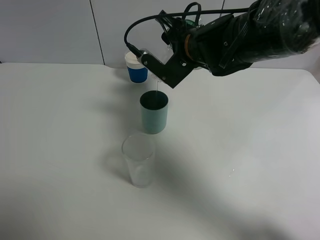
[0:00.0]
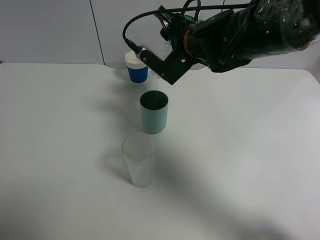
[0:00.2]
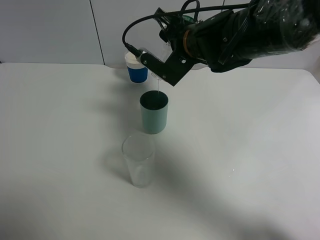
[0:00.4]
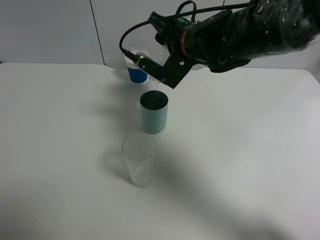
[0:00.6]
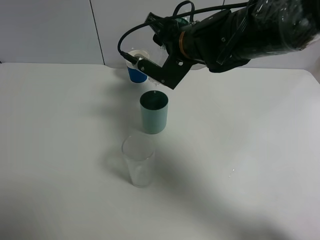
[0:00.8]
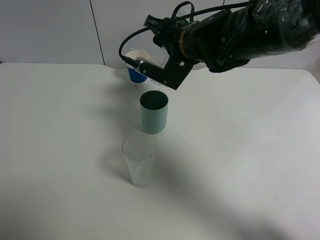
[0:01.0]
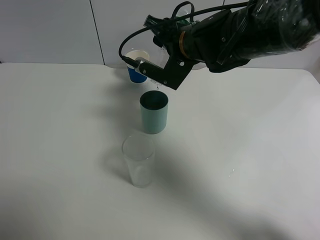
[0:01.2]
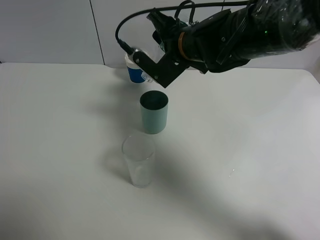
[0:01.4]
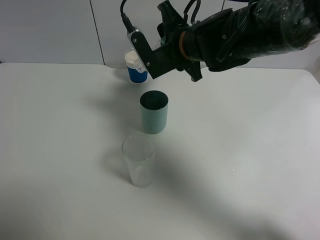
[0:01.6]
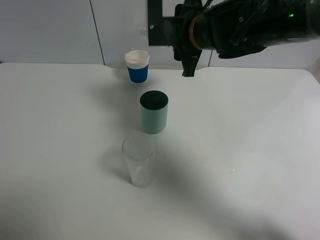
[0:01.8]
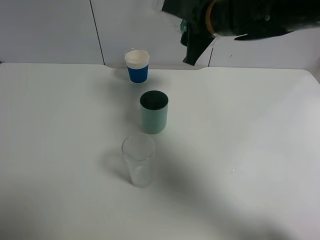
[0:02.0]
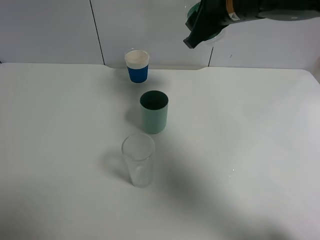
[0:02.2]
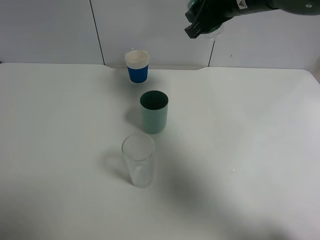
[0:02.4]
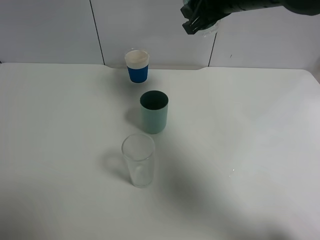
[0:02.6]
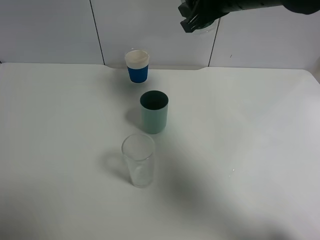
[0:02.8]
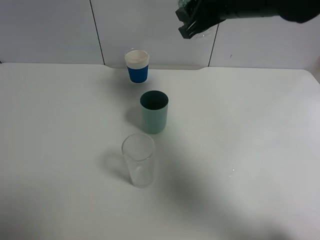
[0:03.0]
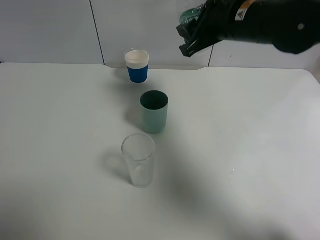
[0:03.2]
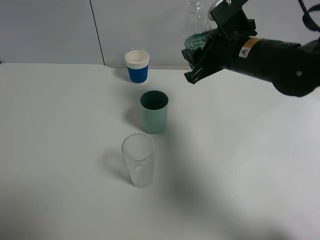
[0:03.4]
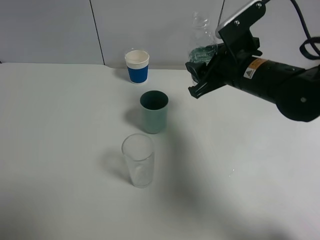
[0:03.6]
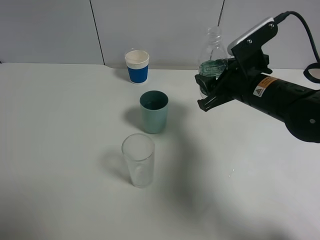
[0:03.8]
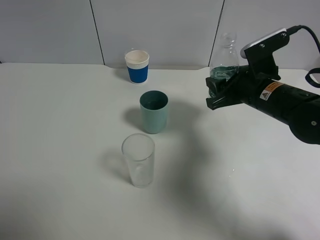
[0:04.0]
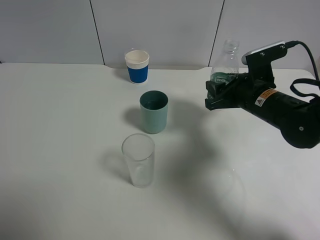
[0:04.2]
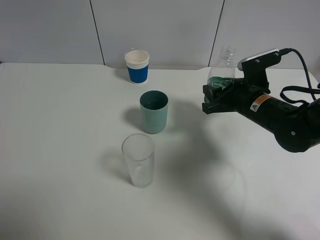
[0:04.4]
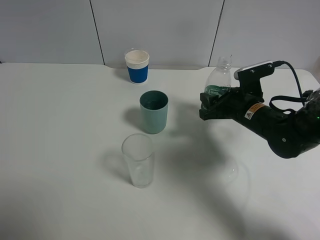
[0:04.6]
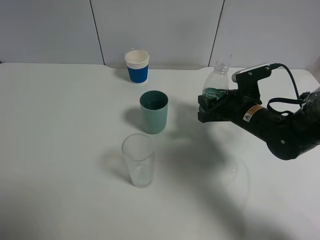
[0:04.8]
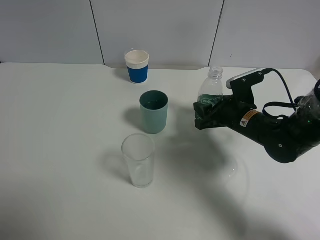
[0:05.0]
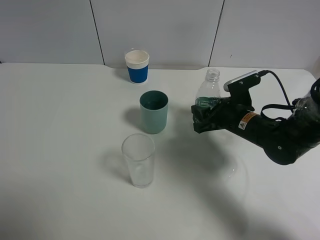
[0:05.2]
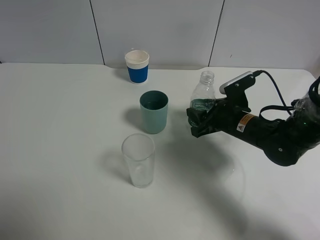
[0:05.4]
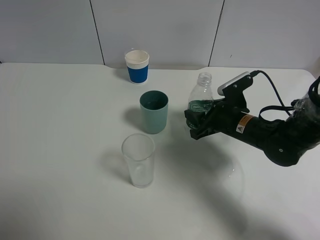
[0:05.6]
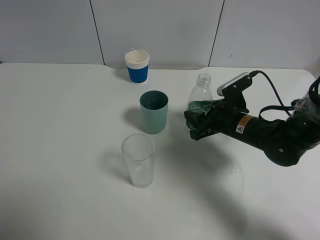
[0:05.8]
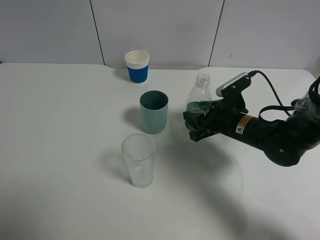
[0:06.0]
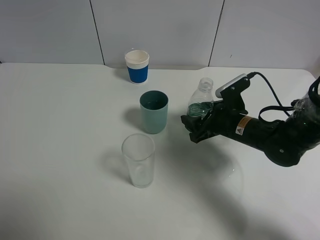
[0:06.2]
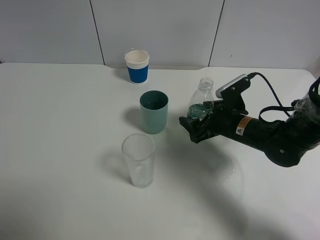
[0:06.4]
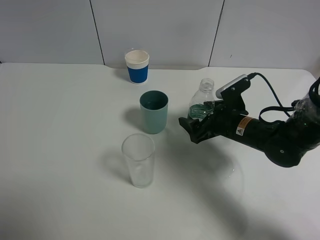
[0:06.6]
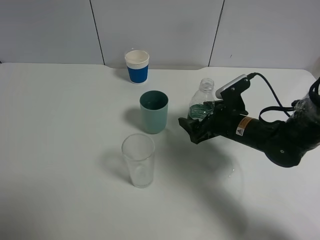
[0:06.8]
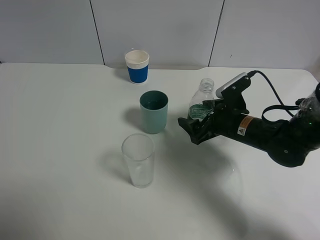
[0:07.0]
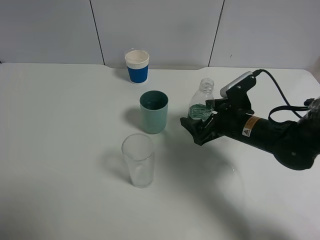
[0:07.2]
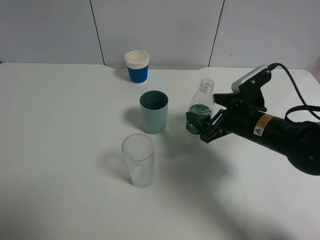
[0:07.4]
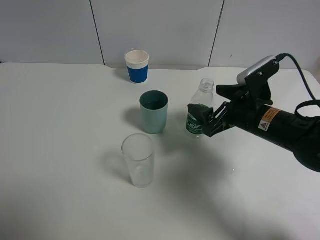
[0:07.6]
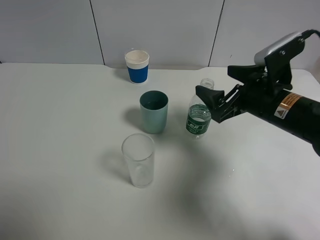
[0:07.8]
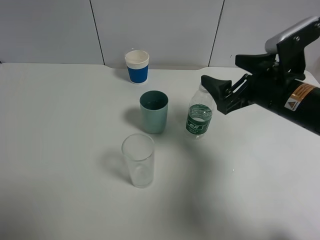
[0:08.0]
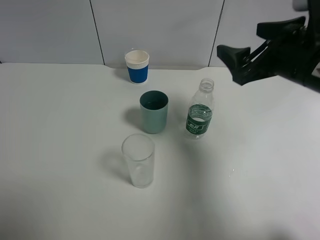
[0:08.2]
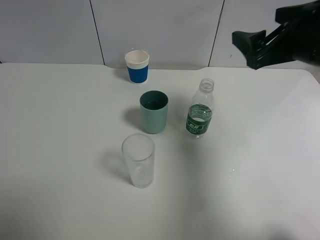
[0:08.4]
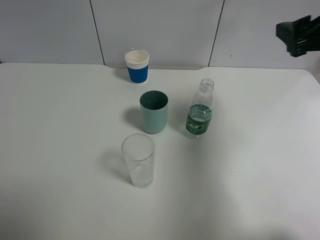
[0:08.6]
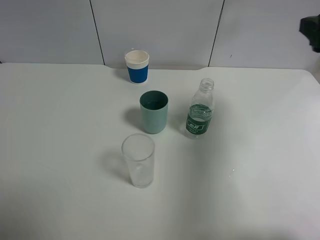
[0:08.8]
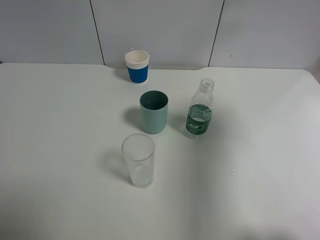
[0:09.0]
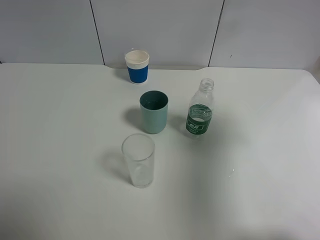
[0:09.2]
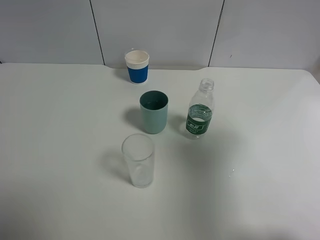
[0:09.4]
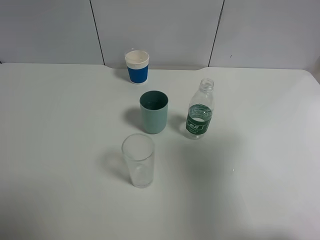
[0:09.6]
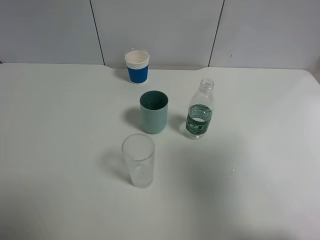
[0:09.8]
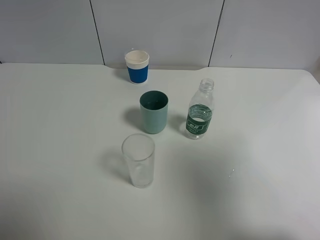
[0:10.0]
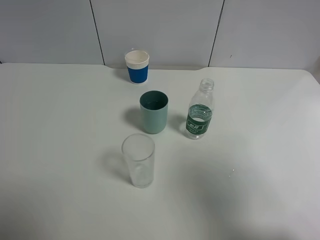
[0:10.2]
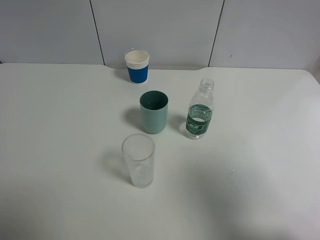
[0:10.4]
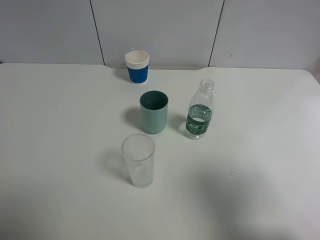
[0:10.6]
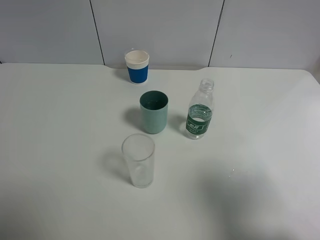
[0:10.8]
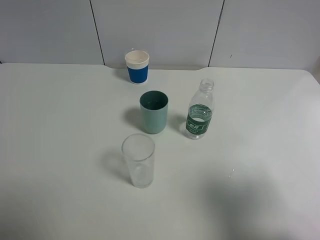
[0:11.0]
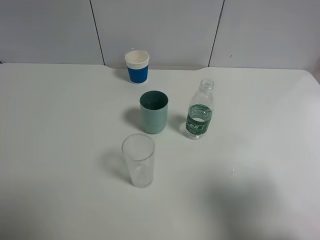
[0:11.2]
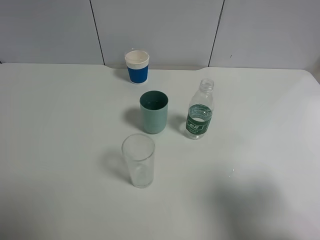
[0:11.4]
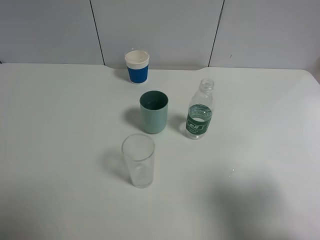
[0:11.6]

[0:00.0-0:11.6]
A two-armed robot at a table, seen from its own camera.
Task of the whole recording: use a gripper to hold the bottle of the drink and pour it into a random cup.
Step, 0:01.8 to 0:06.4: Place the mineral water bottle on the table with the right gripper.
0:00.0 to 0:01.4: There are only small adjustments of the grippers.
0:01.4 to 0:02.8: The right gripper travels upward and to the right by about 10 cm.
0:02.8 to 0:04.4: The right gripper goes approximately 20 cm downward.
0:04.4 to 0:05.8: The grippers move only a little.
0:05.8 to 0:07.2: The right gripper opens.
0:07.2 to 0:08.8: The right gripper shifts approximately 25 cm upward and to the right.
0:08.8 to 0:10.2: The right gripper heads backward, covering approximately 20 cm.
0:10.2 to 0:11.6: The right gripper shifts some 5 cm downward.

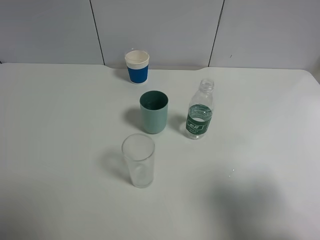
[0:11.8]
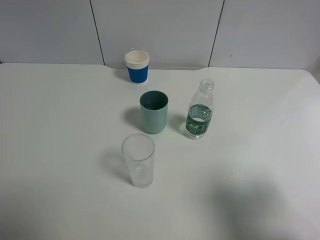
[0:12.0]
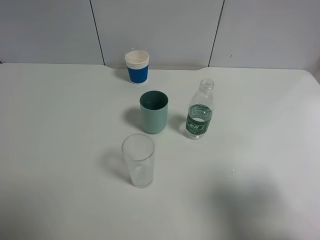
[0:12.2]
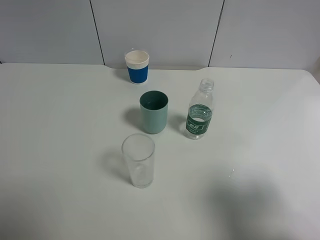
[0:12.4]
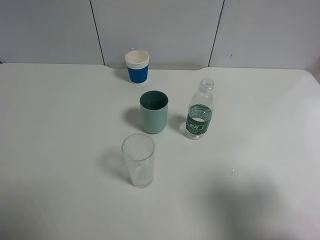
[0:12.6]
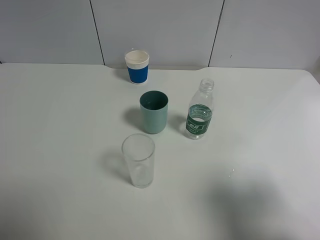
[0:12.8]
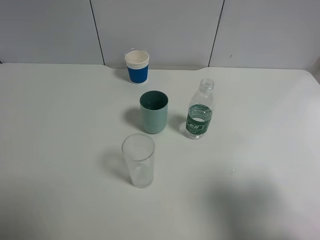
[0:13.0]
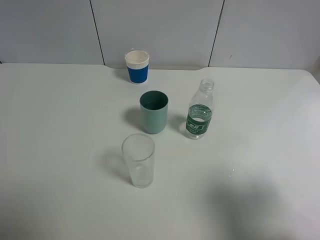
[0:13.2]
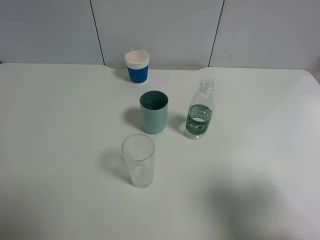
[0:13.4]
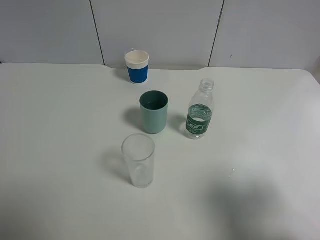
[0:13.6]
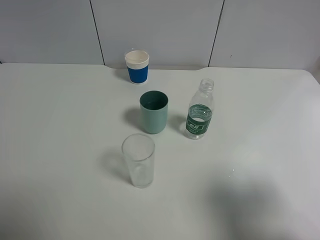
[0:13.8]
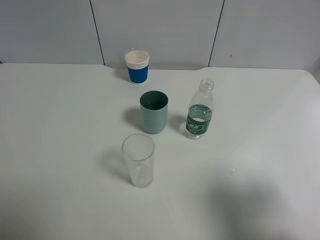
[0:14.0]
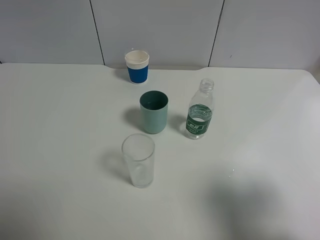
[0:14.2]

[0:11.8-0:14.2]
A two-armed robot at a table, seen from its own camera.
Task of the whole recording: use a gripper to hold the bottle of the drink and pour it into a random cup.
0:11.8 to 0:14.2: Both grippers stay put.

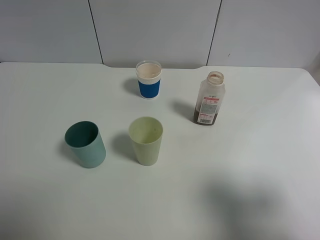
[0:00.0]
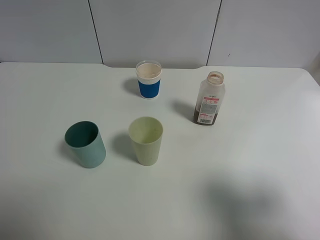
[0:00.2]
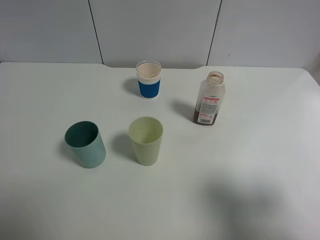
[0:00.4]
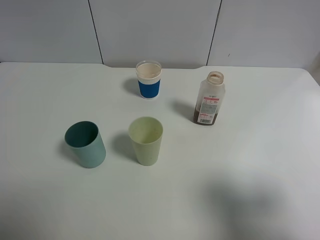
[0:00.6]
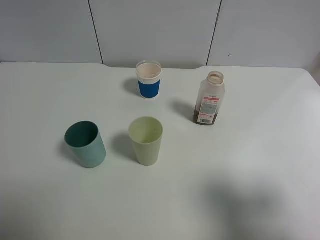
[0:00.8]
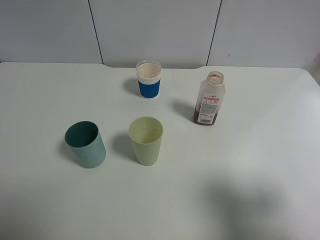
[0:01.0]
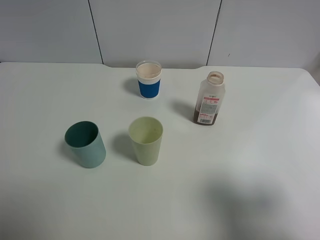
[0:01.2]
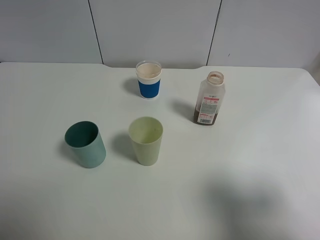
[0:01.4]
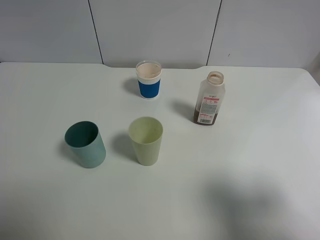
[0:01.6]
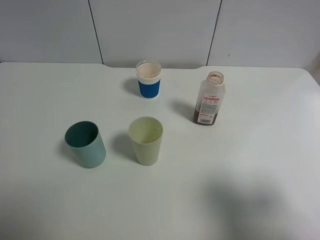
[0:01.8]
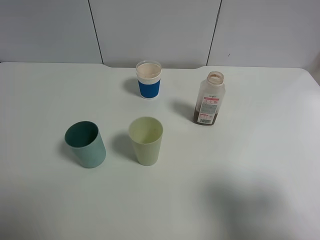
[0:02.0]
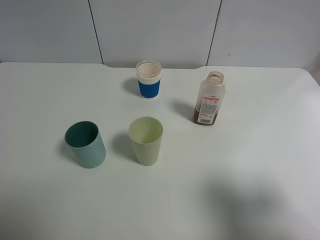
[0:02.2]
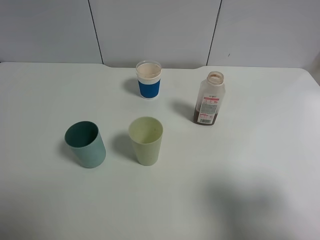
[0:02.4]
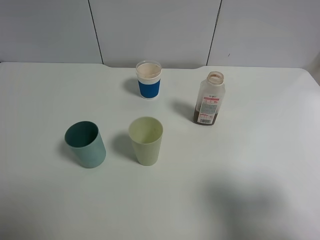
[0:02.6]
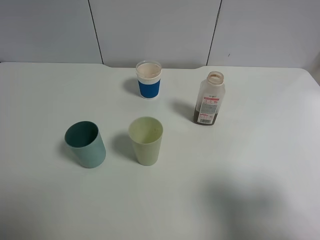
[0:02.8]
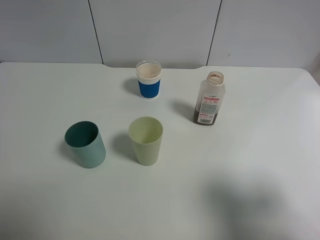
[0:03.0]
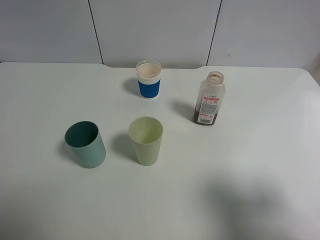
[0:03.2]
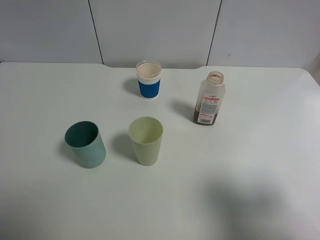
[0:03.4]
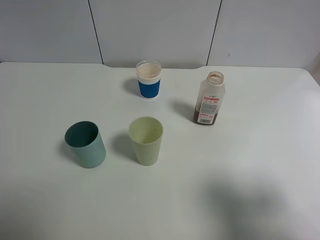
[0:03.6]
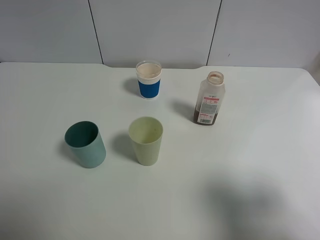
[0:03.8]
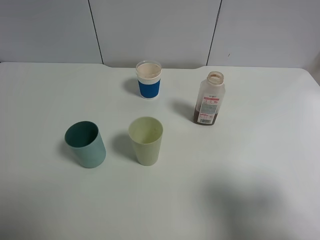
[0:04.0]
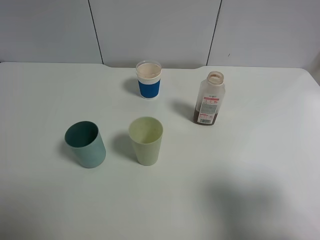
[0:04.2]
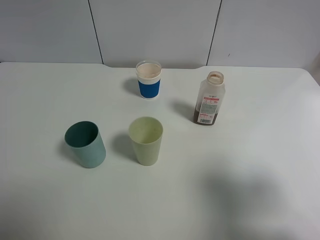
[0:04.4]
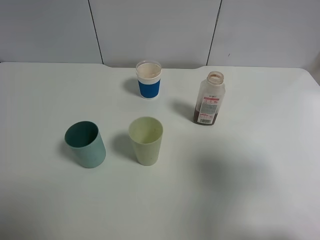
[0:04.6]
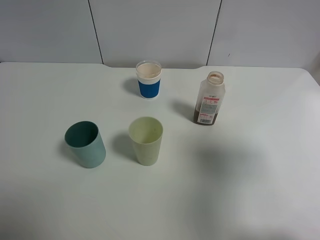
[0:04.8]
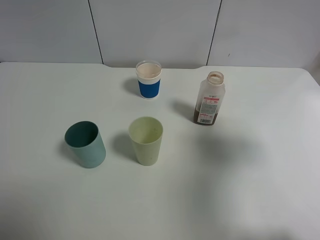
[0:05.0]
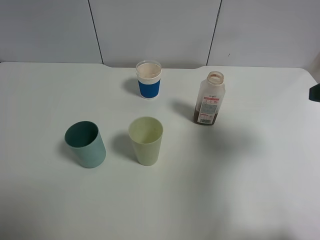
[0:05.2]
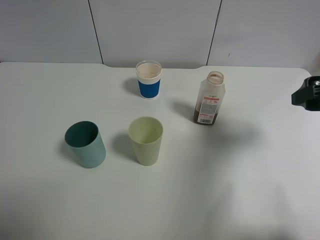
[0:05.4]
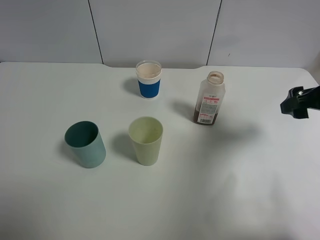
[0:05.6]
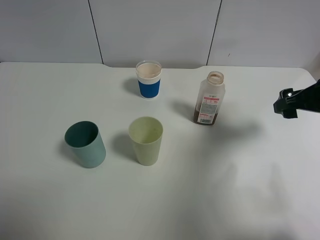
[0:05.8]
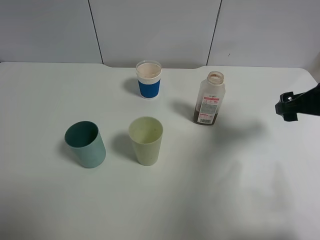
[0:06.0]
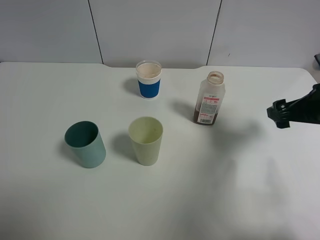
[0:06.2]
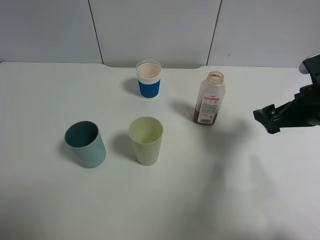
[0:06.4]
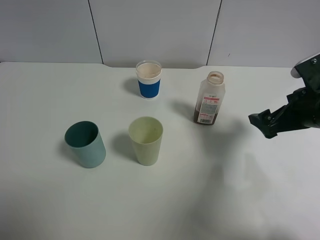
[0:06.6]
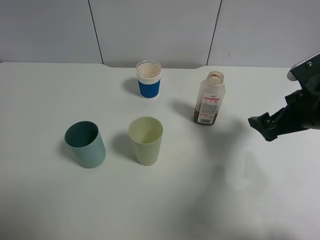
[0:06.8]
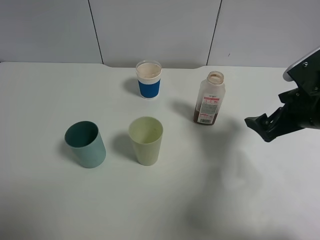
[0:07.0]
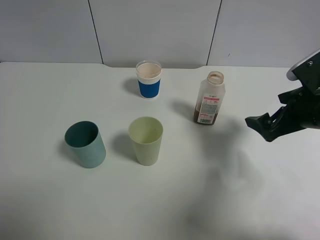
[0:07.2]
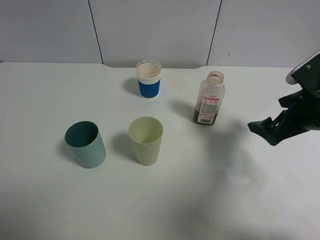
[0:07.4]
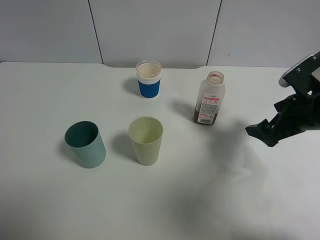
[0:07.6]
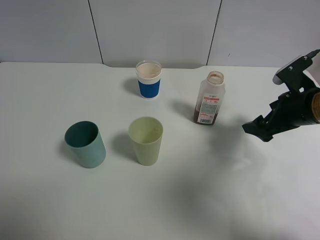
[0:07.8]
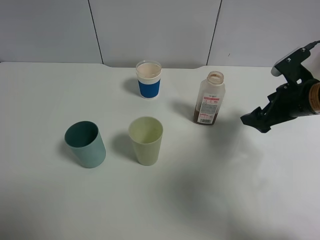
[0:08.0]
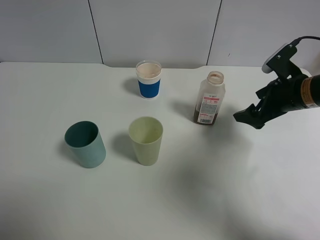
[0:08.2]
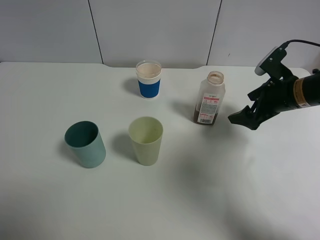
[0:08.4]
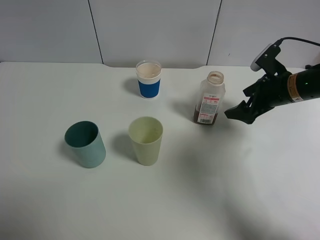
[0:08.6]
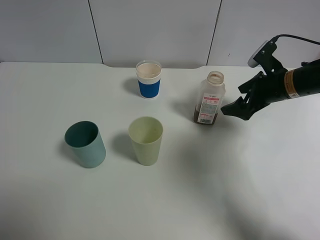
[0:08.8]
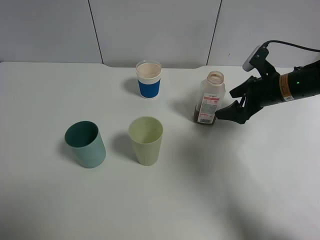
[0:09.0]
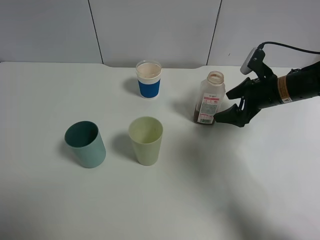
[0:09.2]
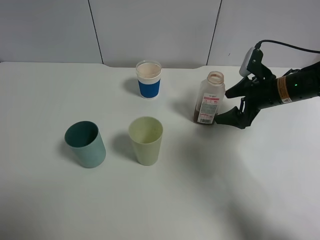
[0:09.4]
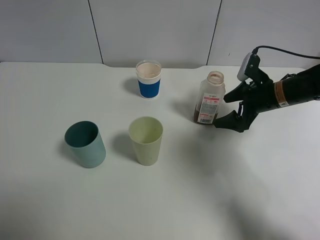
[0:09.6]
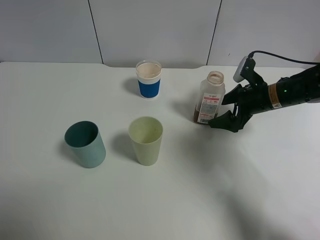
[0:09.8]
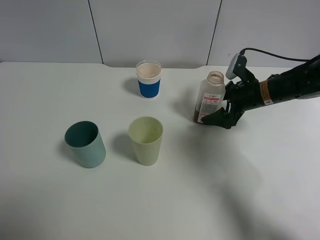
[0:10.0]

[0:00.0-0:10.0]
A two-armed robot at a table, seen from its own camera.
Task of the whole recording: use a gripper to hold the bottle of the drink and pour it into a random cup.
0:00.0 to 0:04.2: Both grippers stay about where they are.
0:04.2 to 0:05.8: The right gripper travels forward by roughly 20 cm.
0:07.2 to 0:08.6: The right gripper shifts approximately 10 cm forward.
0:08.6 to 0:10.0: The right gripper moves about 5 cm.
